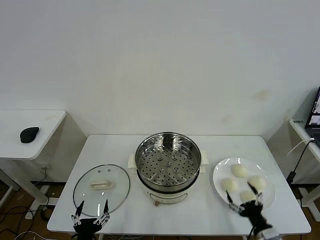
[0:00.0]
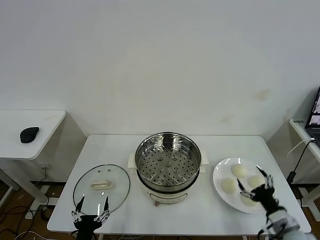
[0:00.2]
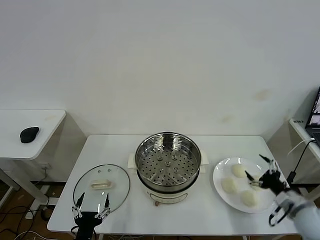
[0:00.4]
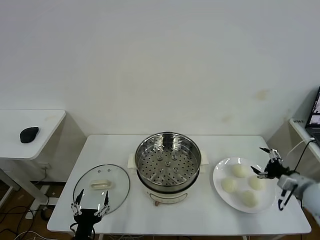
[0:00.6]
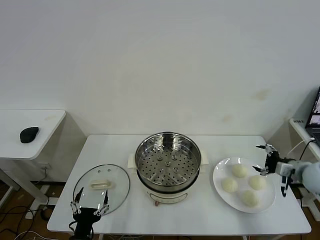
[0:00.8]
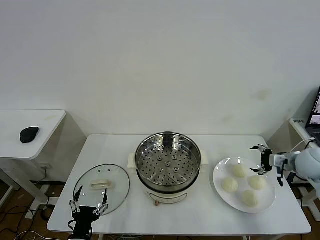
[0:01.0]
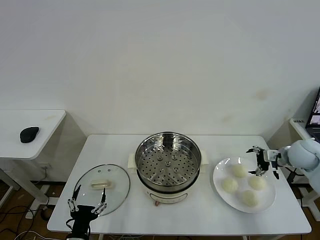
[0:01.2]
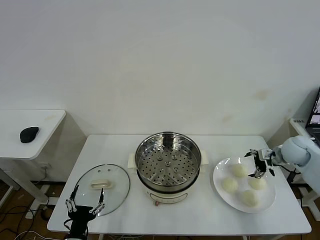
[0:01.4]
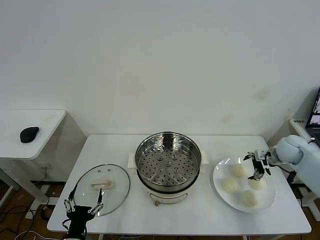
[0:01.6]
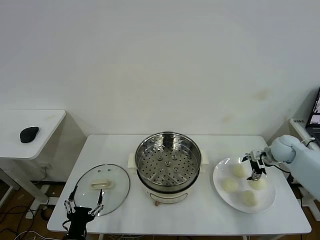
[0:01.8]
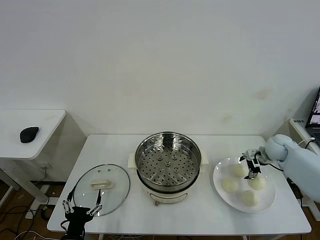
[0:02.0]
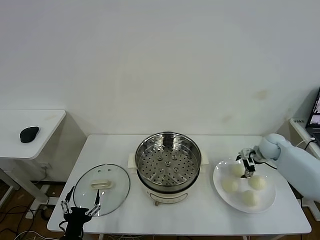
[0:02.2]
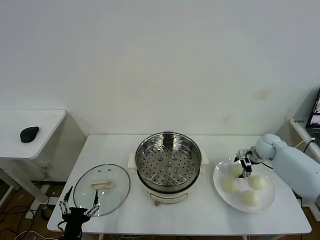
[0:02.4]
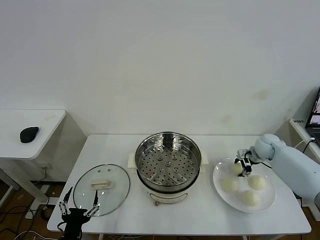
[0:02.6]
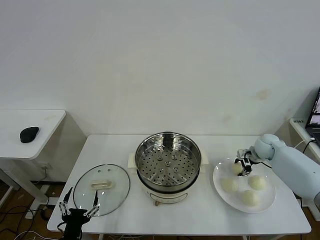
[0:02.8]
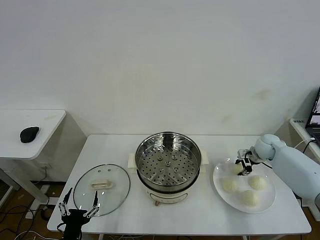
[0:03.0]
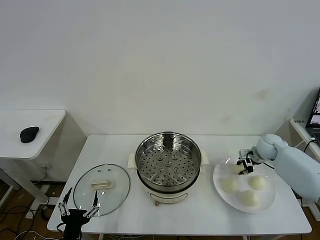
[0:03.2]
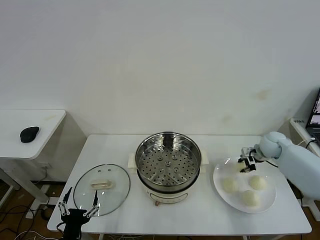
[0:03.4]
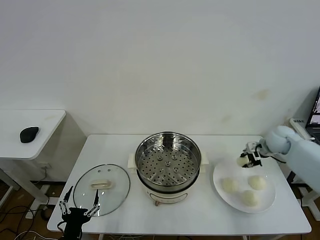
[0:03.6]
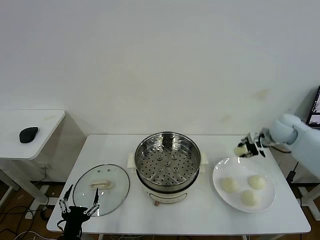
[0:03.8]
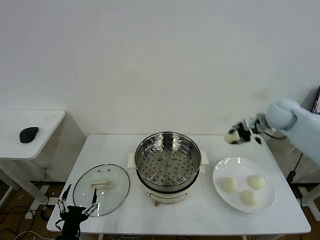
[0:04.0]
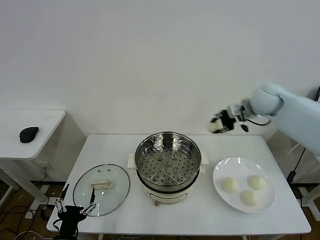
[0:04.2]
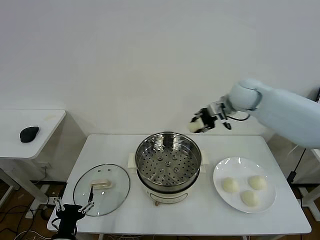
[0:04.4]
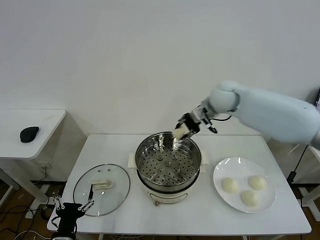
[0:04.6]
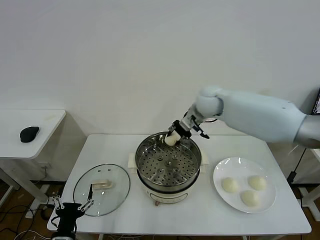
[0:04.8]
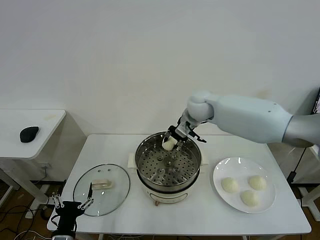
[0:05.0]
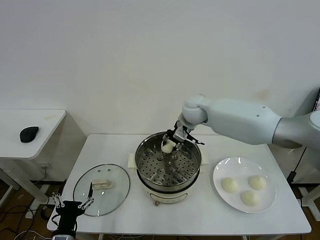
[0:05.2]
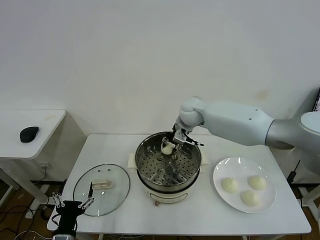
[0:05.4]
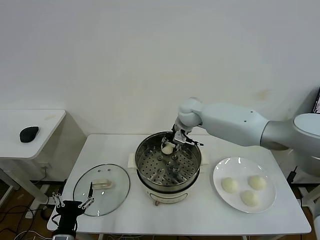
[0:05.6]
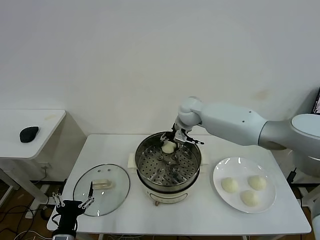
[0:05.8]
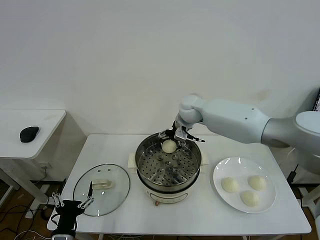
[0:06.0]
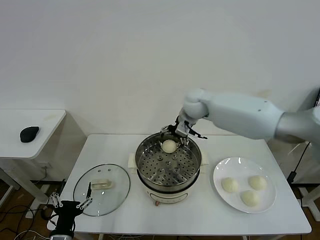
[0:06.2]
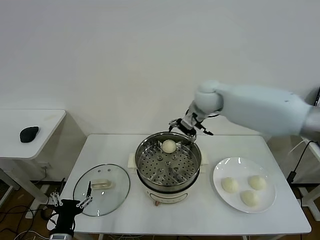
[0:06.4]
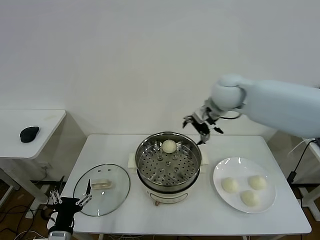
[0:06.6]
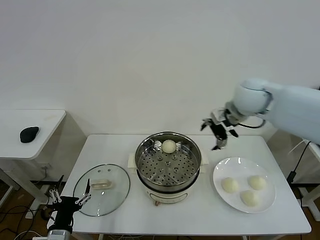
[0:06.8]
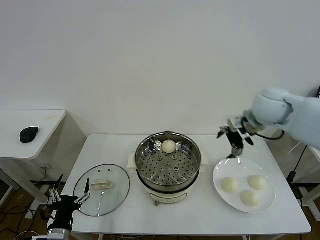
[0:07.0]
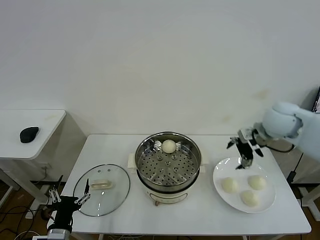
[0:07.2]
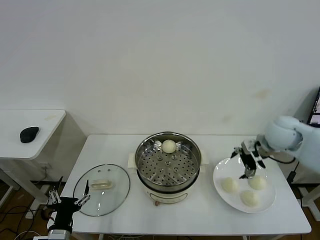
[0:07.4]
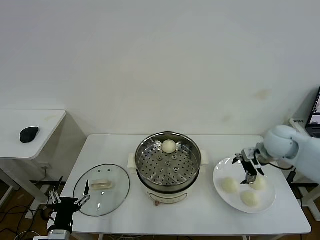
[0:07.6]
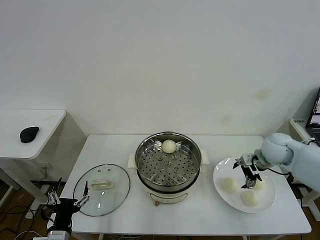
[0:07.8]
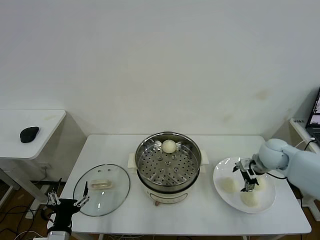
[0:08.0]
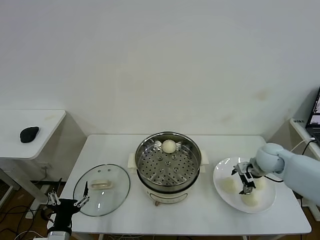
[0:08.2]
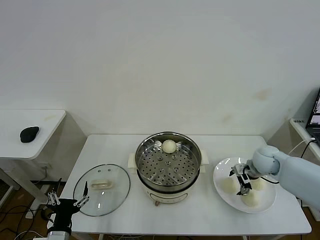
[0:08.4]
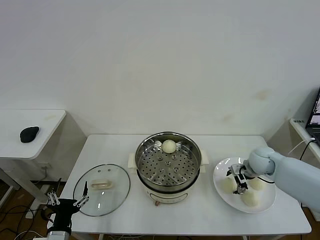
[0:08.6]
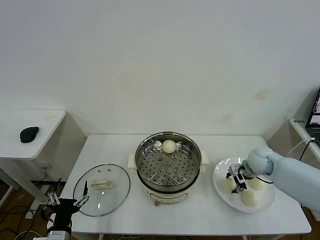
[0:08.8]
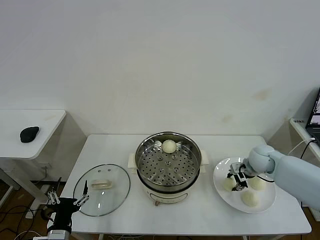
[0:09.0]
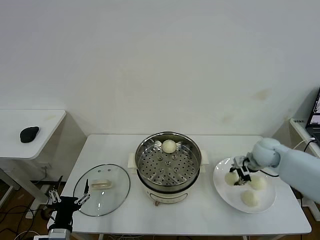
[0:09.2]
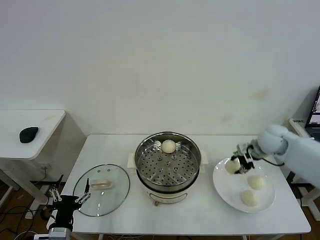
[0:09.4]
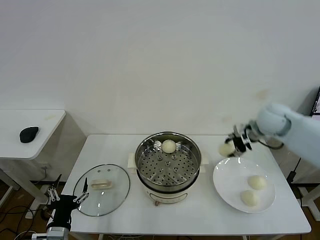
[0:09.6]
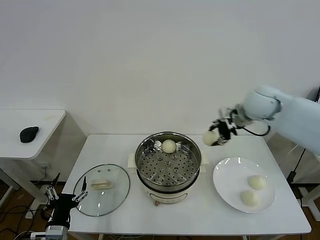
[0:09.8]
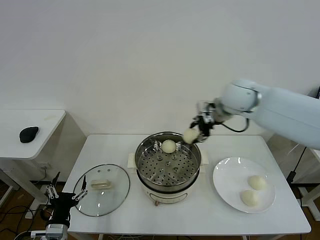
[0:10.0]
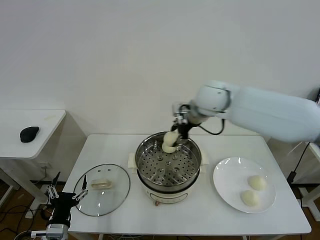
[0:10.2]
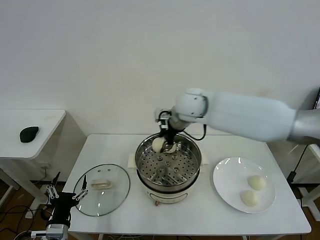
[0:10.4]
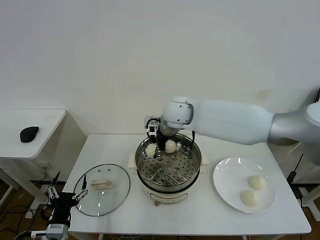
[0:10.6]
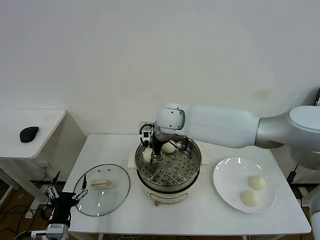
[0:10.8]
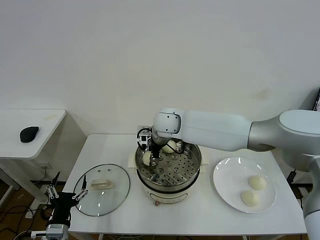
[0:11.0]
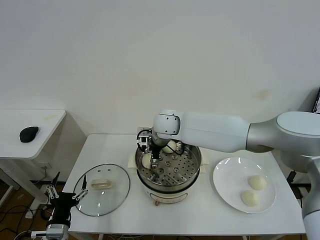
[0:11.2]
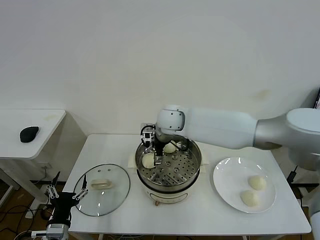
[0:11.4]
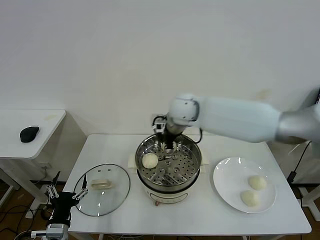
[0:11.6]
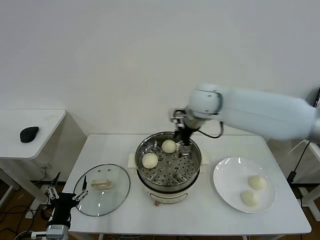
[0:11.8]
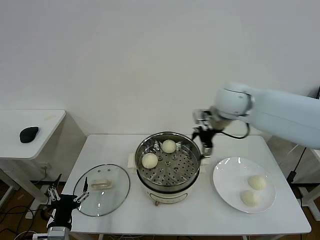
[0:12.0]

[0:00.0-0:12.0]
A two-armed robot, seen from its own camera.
Task of the whole recording: take steamed baozi put them in steamer then cover it.
Step, 0:00.0 to 0:02.6: Grasp the baozi in the plate with right gripper.
Step, 0:02.8 to 0:05.8: Place the baozi on the steamer with right gripper.
Step, 0:06.0 to 0:08.8: Grasp the baozi in the plate with right gripper.
Step, 0:09.0 to 0:11.2: Place the baozi on the steamer with right gripper.
0:01.6 to 0:03.0: The right gripper moves forward and downward, about 5 cm, and closes up.
0:03.0 to 0:04.4: The right gripper travels upward and to the left by about 30 cm.
0:04.4 to 0:06.0: The right gripper shifts roughly 15 cm to the left and downward, and opens up.
0:06.0 to 0:07.6: The right gripper moves to the right and backward, approximately 30 cm.
0:07.6 to 0:09.0: The right gripper heads downward, covering about 10 cm, and closes.
0:09.0 to 0:10.4: The right gripper travels to the left and upward by about 35 cm.
0:10.4 to 0:12.0: The right gripper is displaced to the right by approximately 10 cm, and opens.

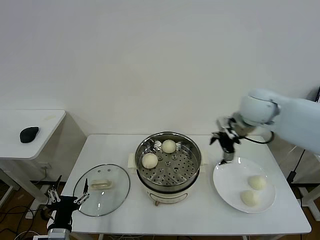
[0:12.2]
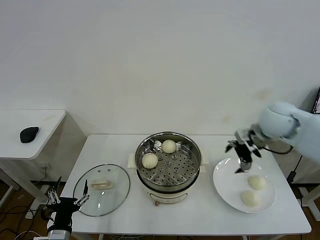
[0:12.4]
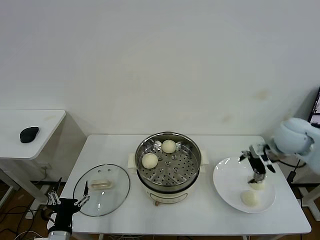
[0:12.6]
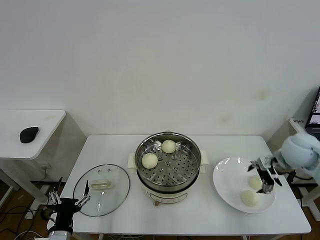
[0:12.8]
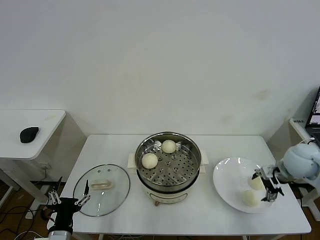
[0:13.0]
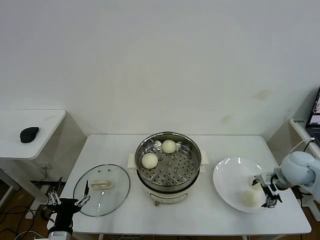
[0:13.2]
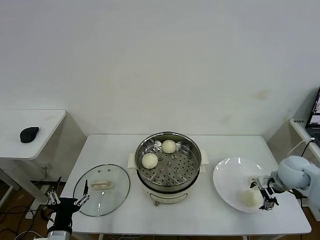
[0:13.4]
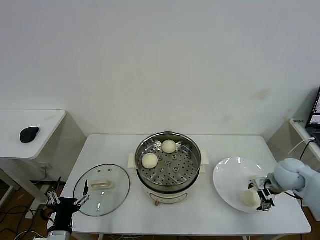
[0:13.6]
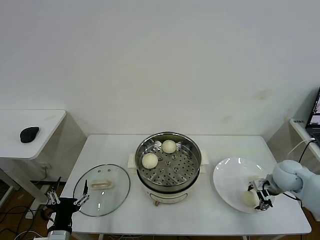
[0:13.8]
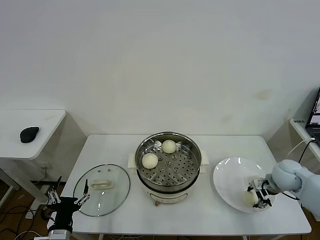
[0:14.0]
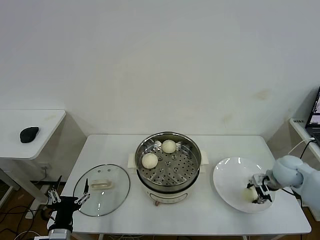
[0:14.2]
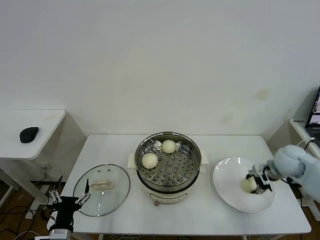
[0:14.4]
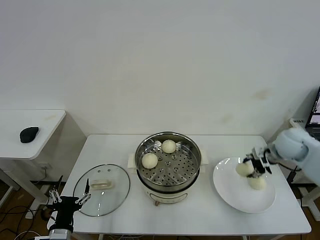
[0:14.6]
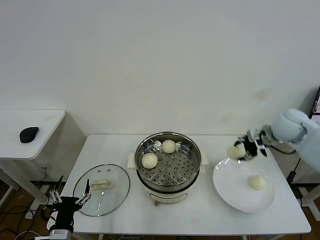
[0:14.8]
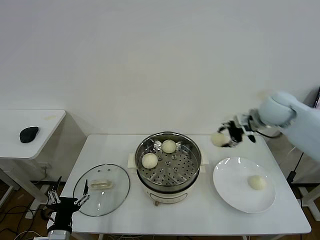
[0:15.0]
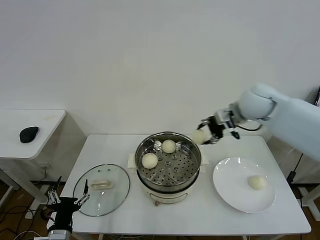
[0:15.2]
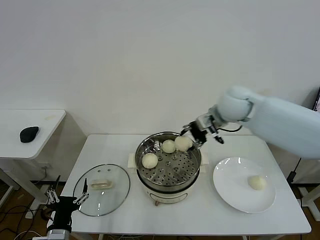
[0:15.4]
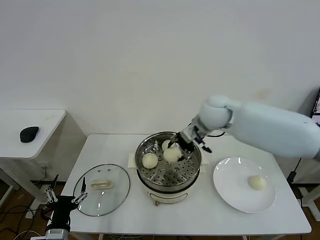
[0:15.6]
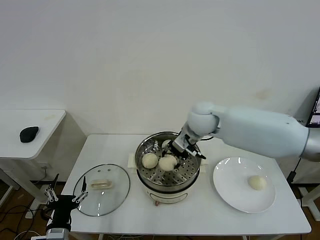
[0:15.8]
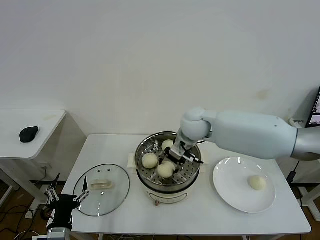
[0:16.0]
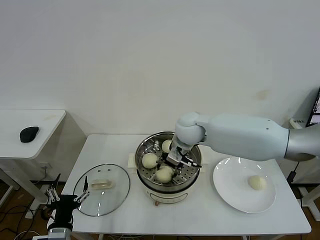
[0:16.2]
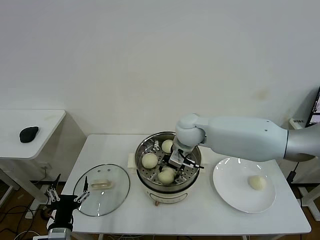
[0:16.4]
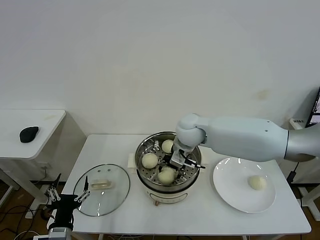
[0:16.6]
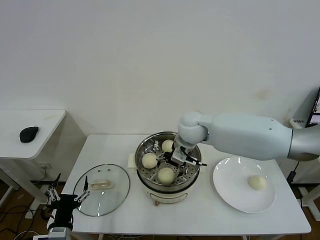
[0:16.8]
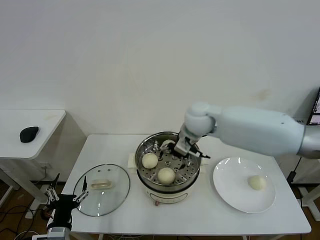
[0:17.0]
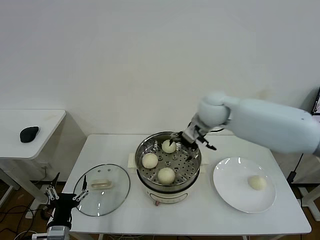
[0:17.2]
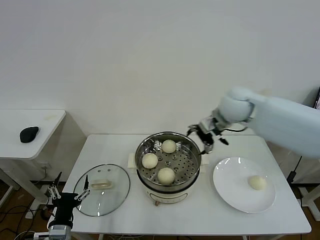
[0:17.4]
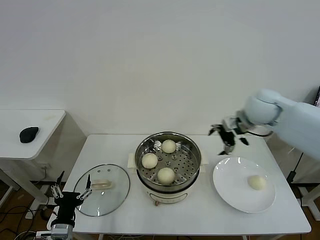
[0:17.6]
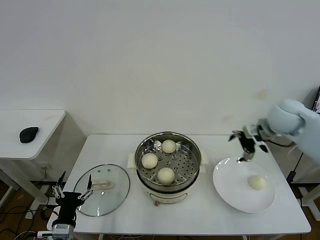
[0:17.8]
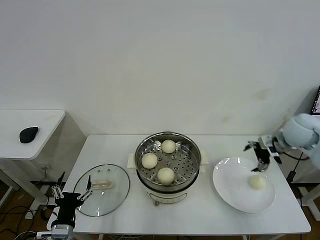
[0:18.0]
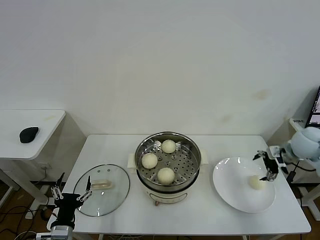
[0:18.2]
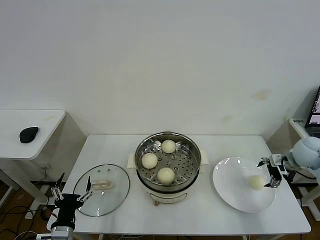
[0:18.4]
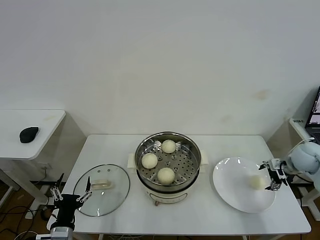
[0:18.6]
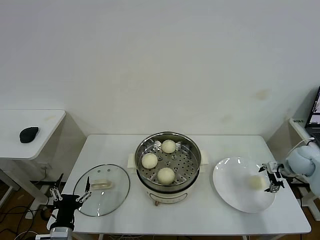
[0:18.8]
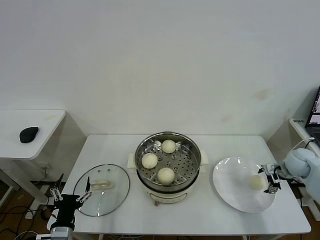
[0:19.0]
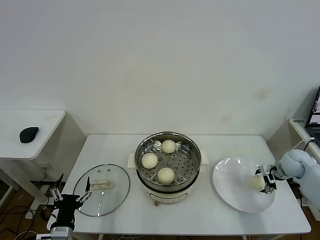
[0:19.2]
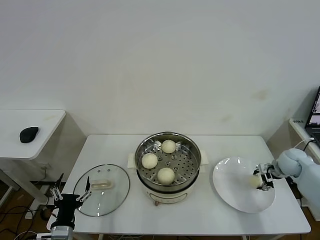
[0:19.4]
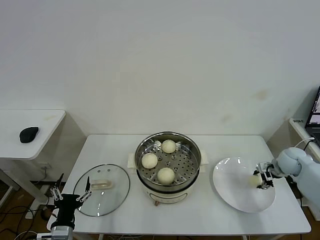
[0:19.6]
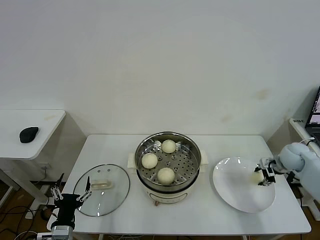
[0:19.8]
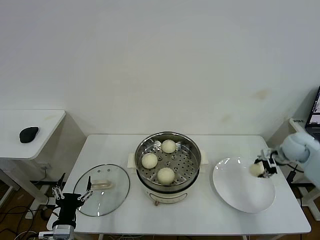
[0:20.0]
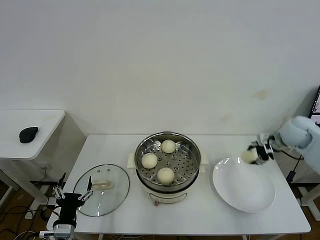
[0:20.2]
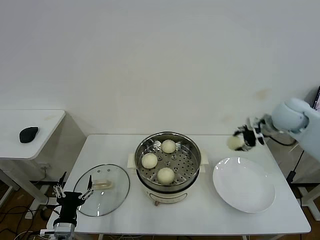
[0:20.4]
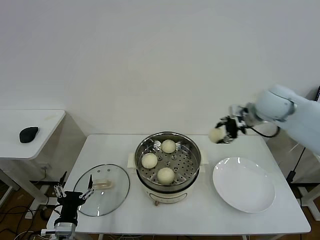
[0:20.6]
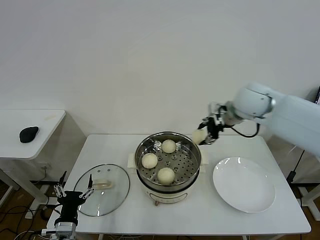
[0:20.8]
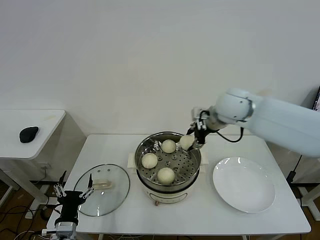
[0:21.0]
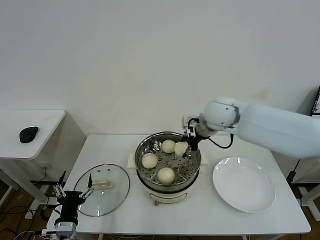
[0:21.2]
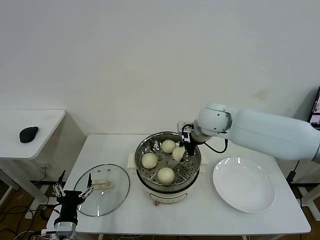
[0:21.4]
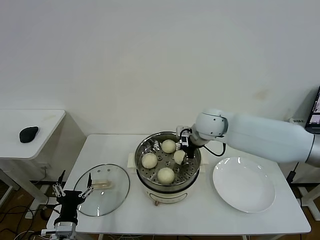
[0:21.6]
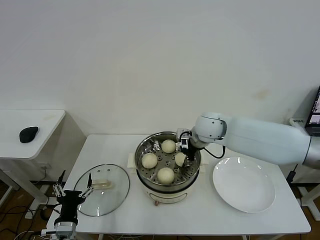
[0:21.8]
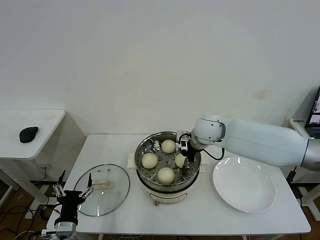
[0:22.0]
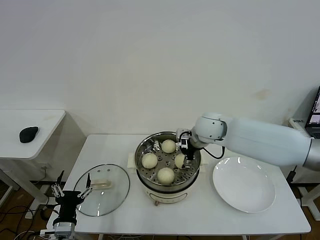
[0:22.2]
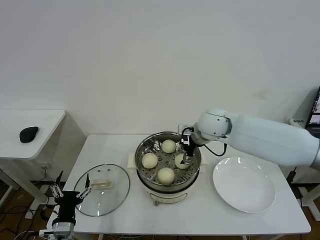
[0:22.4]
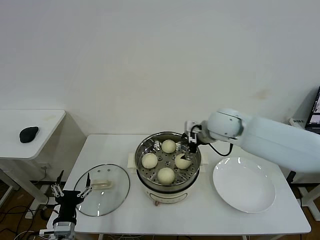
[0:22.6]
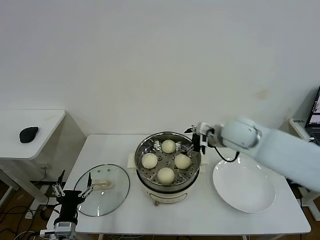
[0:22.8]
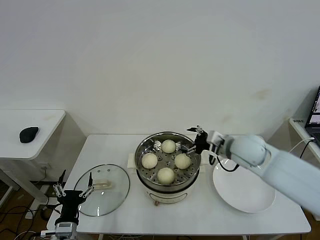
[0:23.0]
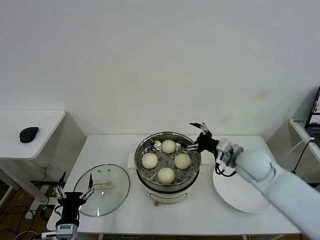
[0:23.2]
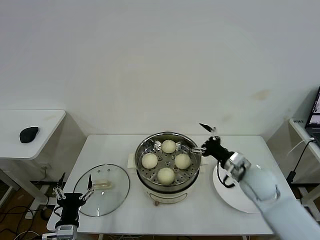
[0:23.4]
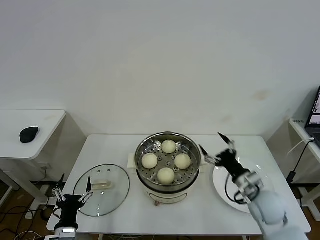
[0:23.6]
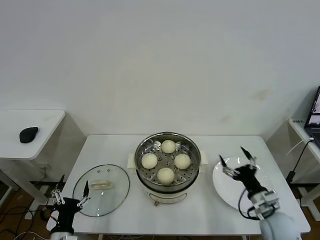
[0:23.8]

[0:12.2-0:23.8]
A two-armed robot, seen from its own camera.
Task of the whole recording: take steamed baozi put them in steamer then cover it.
Step, 0:12.2 to 0:14.0: Grasp the baozi in the plate with right gripper.
Step, 0:14.2 to 0:17.0: Place the baozi on the steamer with right gripper.
Step, 0:17.2 to 0:19.6: Grasp the baozi in the plate with right gripper.
Step, 0:19.8 to 0:22.0: Place the baozi on the steamer with right gripper.
0:12.2 to 0:13.6: The right gripper heads downward, to the right and backward, covering roughly 25 cm.
0:13.6 to 0:15.0: The right gripper travels upward, forward and to the left by about 25 cm, and closes up.
0:15.0 to 0:16.6: The right gripper travels to the left by some 25 cm.
0:16.6 to 0:18.0: The right gripper travels to the right by about 35 cm, and opens up.
0:18.0 to 0:19.4: The right gripper moves downward, roughly 15 cm, and closes up.
0:19.4 to 0:21.0: The right gripper goes some 35 cm to the left and upward.
0:21.0 to 0:22.4: The right gripper shifts approximately 5 cm downward, and opens up.
0:22.4 to 0:23.8: The right gripper goes roughly 35 cm backward, downward and to the right.
